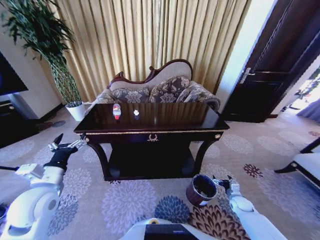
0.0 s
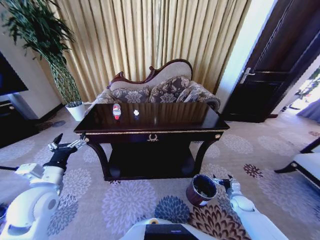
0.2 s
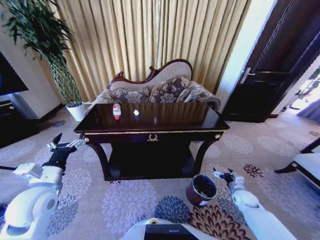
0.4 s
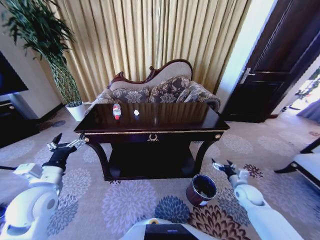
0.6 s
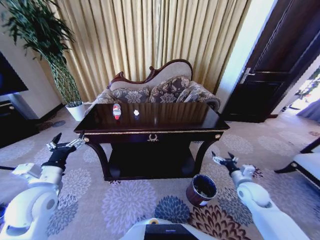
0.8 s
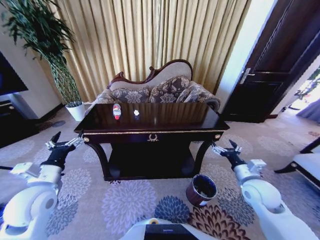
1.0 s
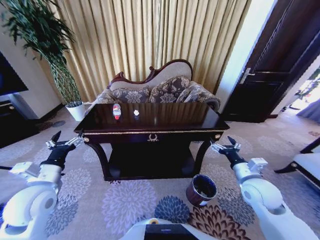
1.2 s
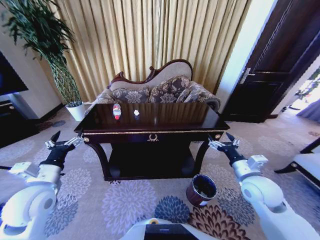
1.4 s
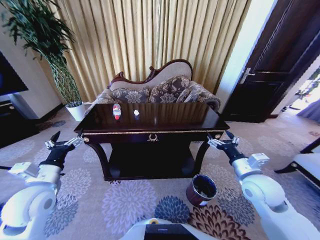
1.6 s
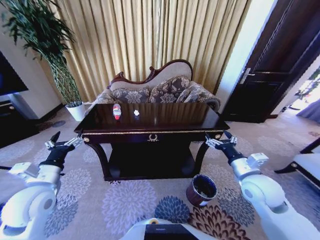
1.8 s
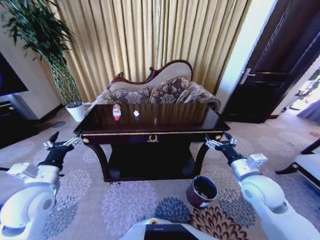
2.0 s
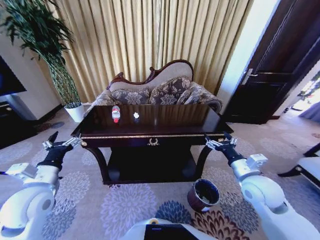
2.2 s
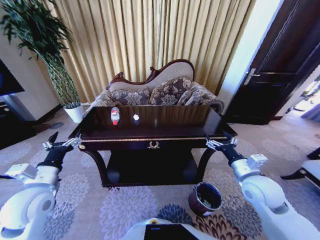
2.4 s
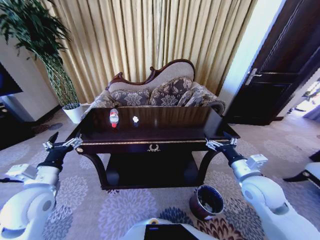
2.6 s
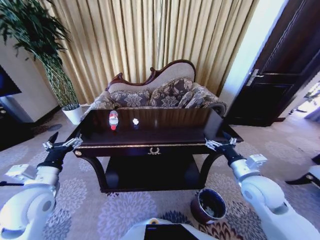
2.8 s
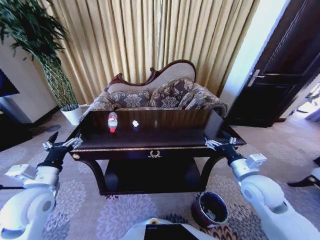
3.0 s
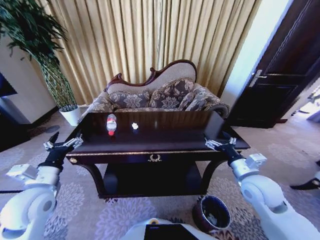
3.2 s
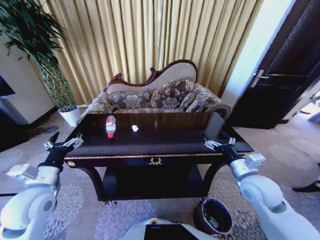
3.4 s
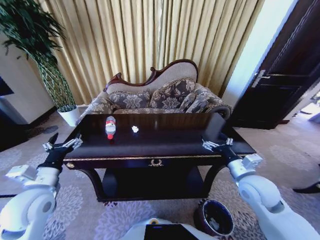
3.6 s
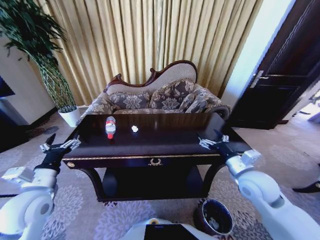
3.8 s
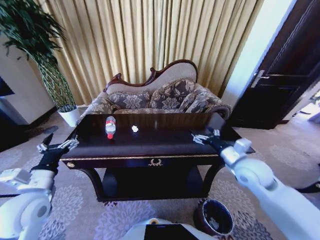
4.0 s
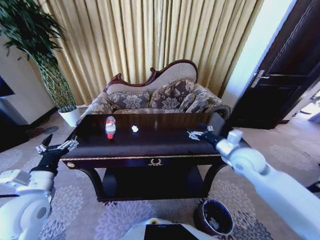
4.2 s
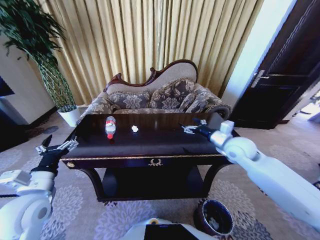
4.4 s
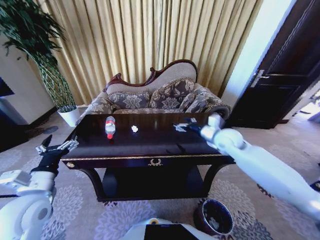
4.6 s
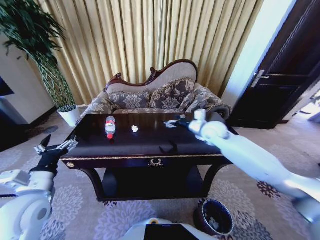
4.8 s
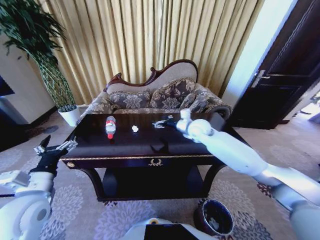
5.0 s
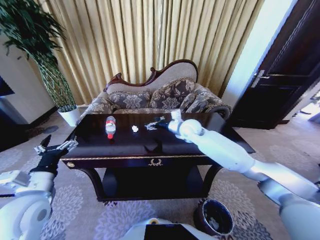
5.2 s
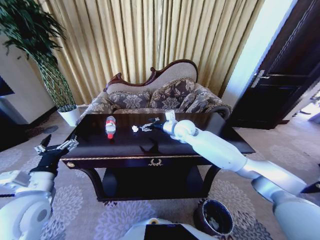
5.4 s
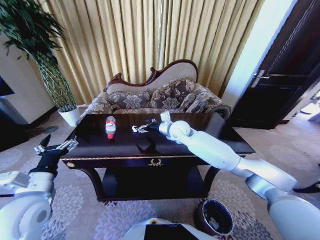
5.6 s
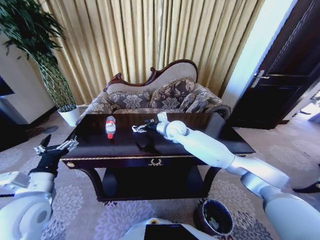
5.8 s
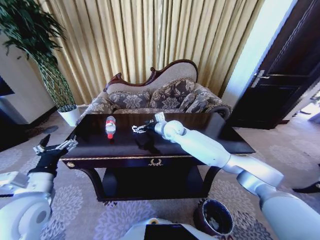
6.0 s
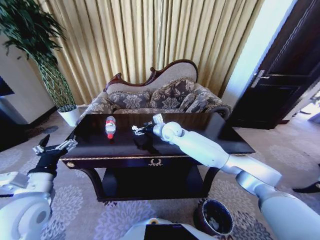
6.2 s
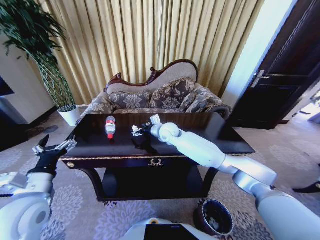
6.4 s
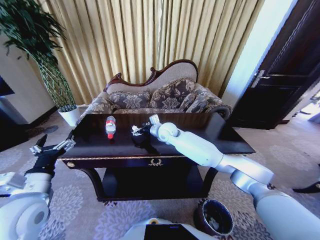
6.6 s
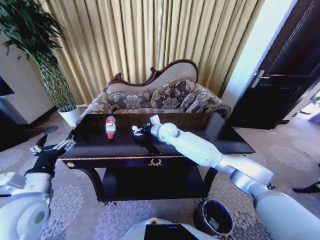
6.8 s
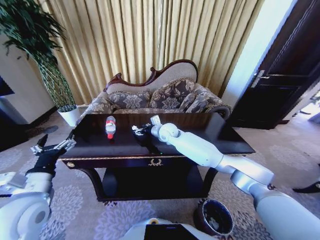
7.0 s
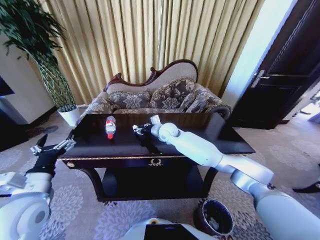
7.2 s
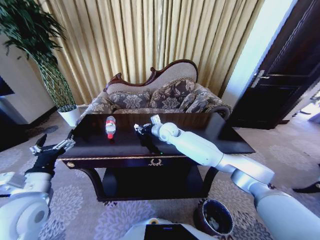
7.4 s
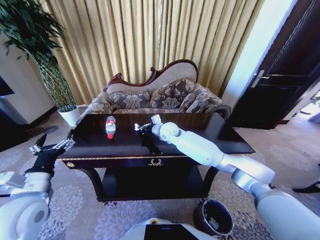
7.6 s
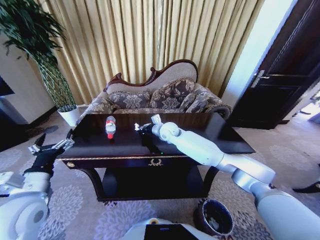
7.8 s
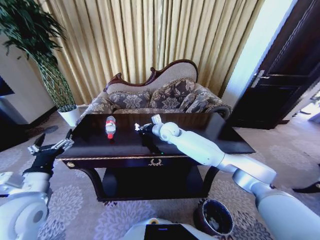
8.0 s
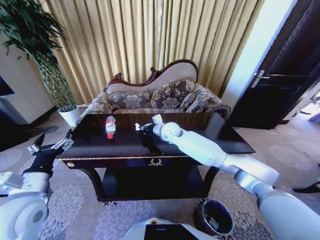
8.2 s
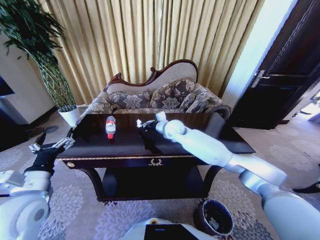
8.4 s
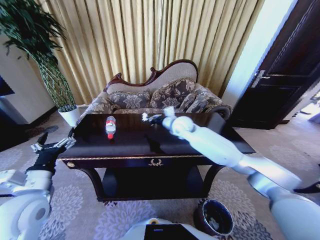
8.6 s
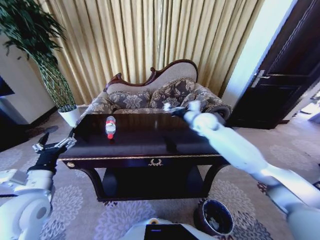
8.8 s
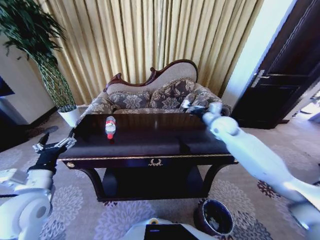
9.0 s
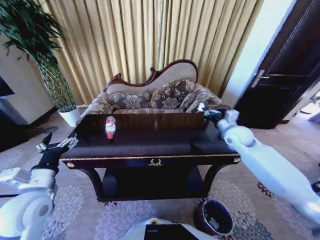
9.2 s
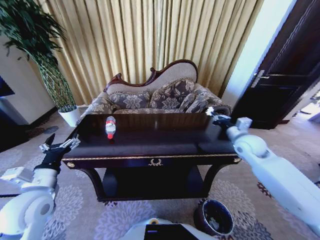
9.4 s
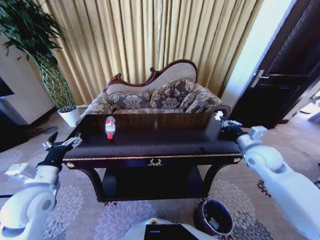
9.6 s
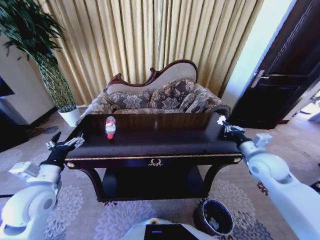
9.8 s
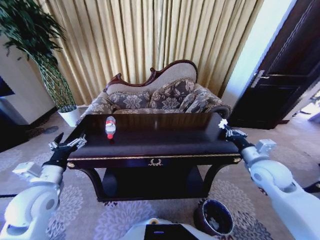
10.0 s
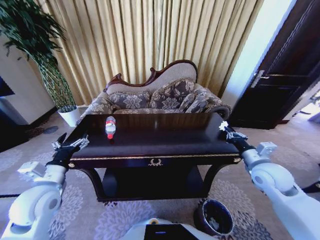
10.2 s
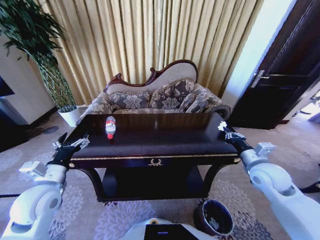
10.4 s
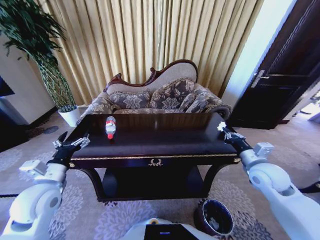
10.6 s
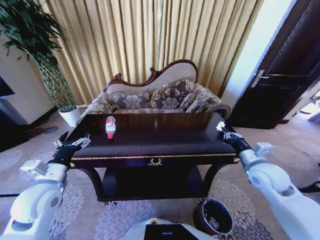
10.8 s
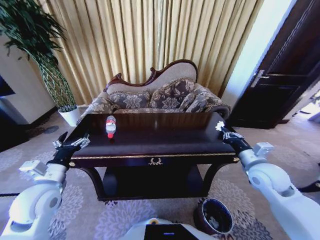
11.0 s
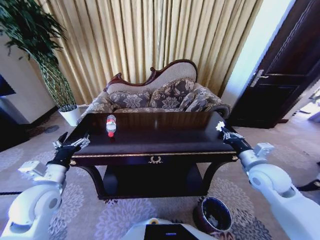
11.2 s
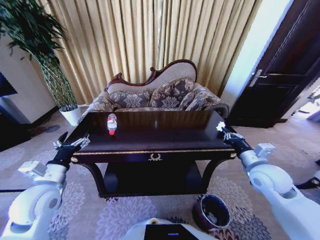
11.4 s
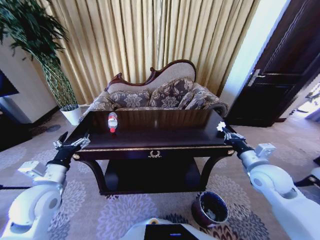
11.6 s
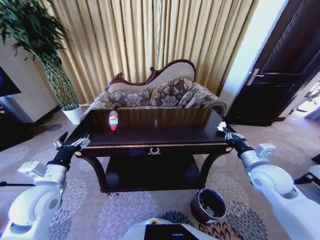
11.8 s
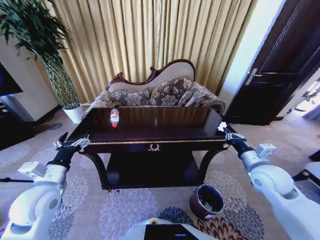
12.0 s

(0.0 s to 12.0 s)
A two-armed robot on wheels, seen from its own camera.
Task of the whole recording: Move to the front of the table and place the trash on the table into the trash bin.
0.0 s - 1.6 s: The right gripper travels upward and to the left by approximately 35 cm.
3.0 s - 4.4 s: The right gripper heads forward, covering about 15 cm.
4.4 s - 6.0 s: The right gripper is displaced to the left and forward by about 25 cm.
6.0 s - 7.6 s: The right gripper closes up.
7.6 s - 9.0 s: The right gripper shifts about 25 cm to the right.
9.0 s - 10.4 s: The right gripper heads backward, covering some 20 cm.

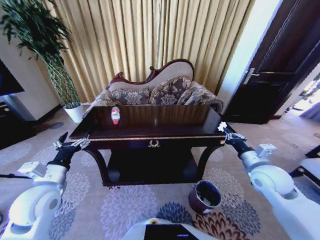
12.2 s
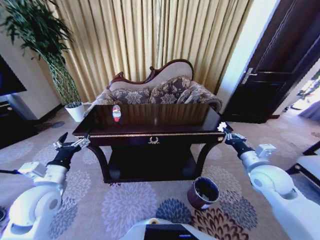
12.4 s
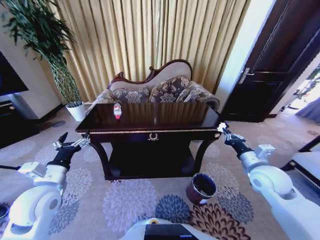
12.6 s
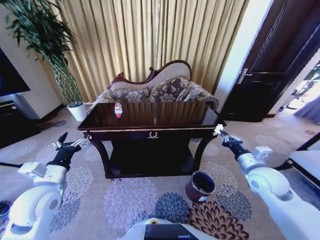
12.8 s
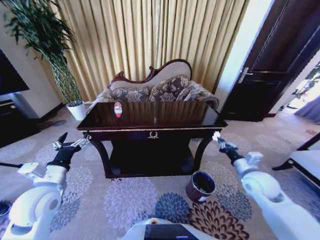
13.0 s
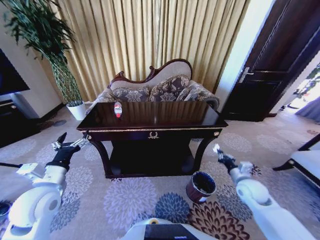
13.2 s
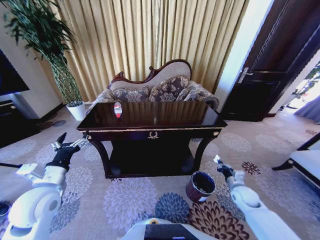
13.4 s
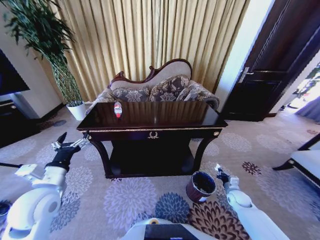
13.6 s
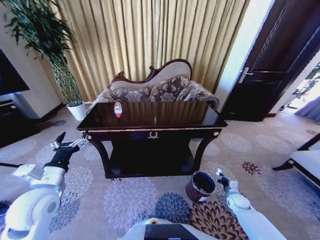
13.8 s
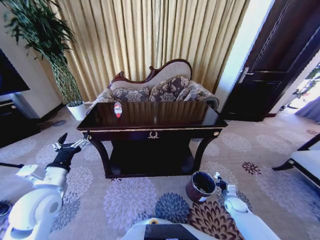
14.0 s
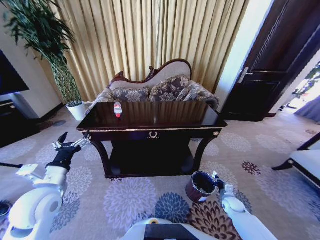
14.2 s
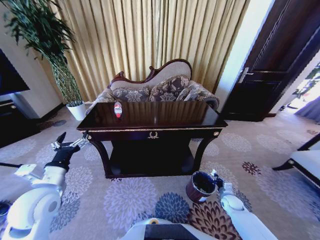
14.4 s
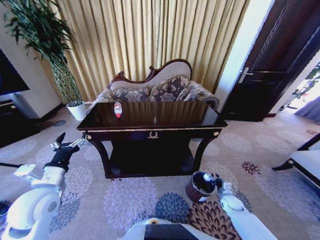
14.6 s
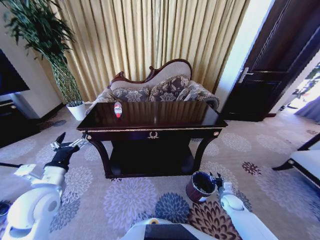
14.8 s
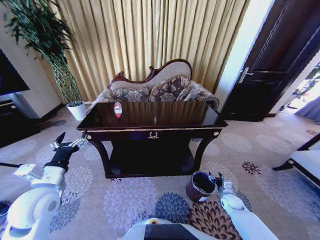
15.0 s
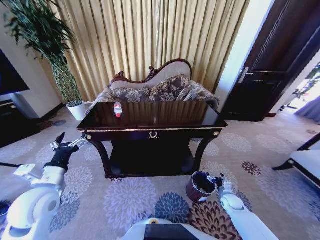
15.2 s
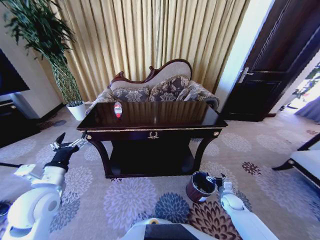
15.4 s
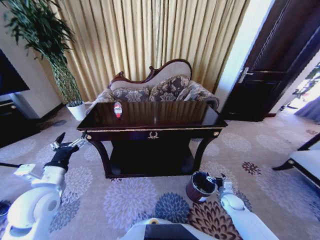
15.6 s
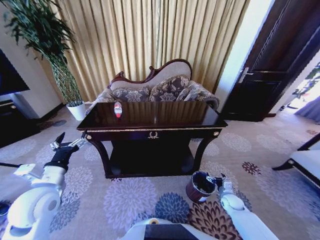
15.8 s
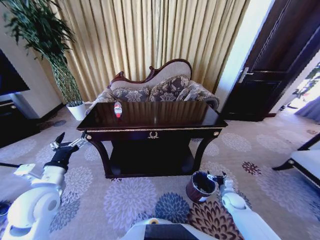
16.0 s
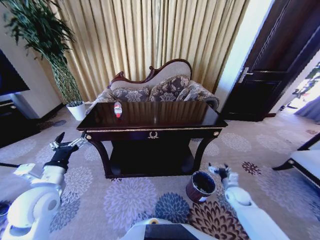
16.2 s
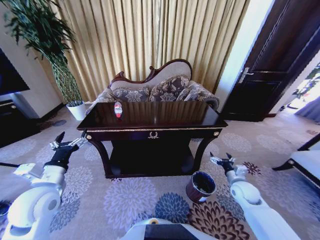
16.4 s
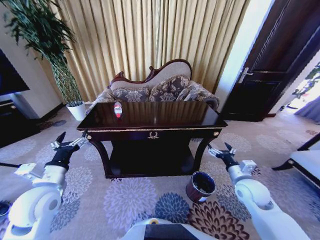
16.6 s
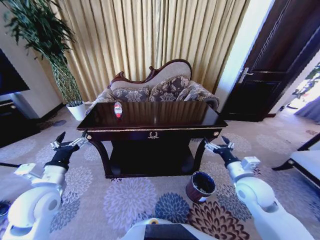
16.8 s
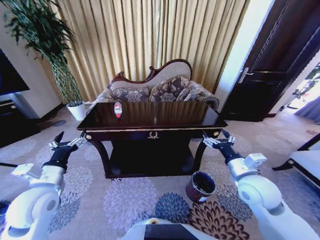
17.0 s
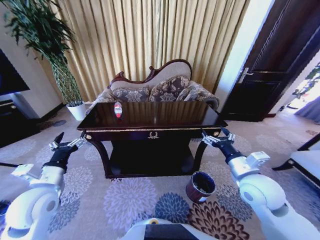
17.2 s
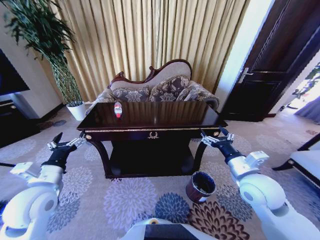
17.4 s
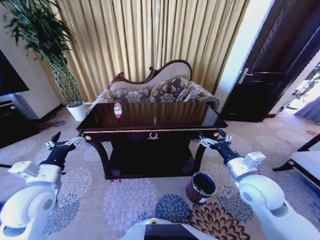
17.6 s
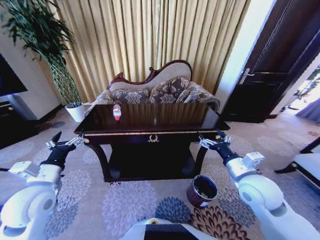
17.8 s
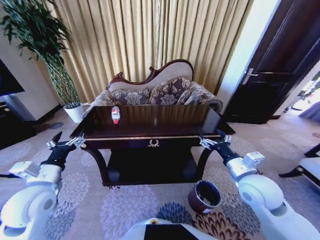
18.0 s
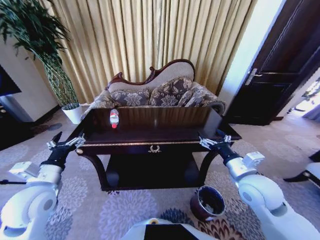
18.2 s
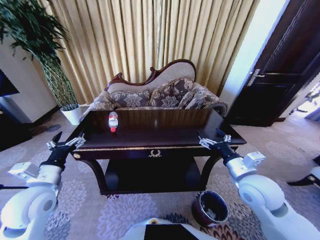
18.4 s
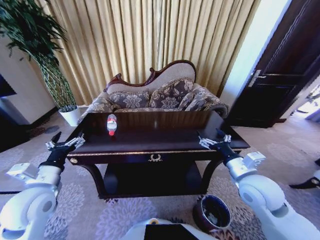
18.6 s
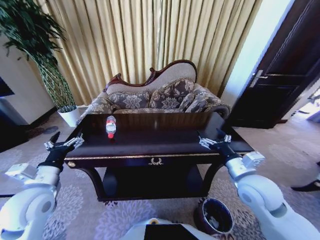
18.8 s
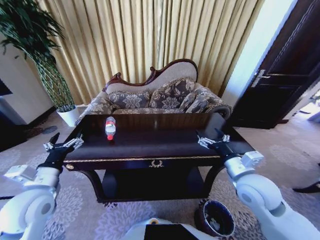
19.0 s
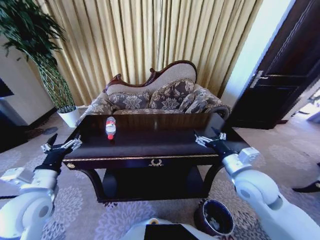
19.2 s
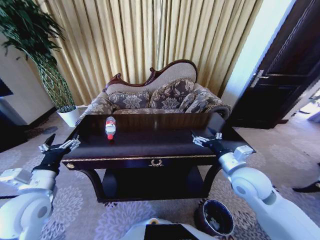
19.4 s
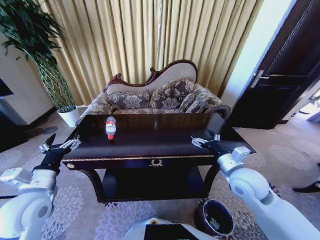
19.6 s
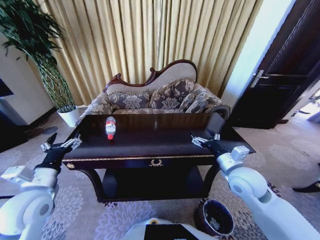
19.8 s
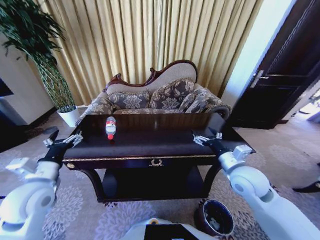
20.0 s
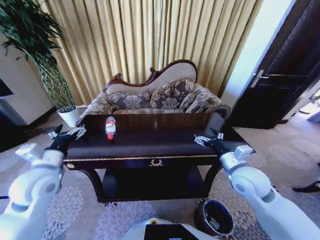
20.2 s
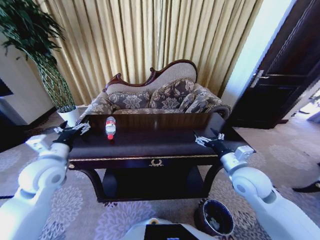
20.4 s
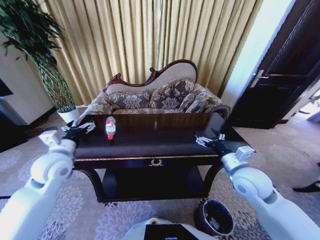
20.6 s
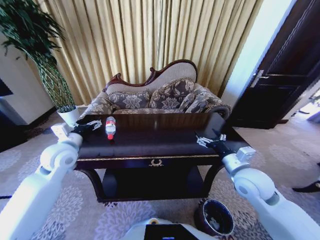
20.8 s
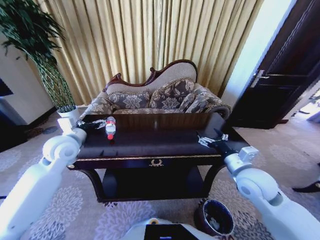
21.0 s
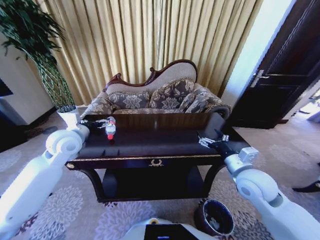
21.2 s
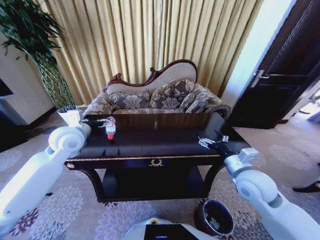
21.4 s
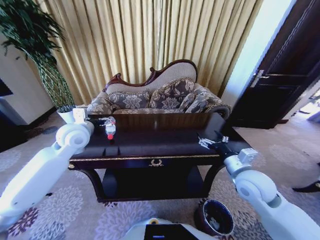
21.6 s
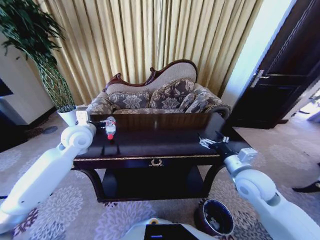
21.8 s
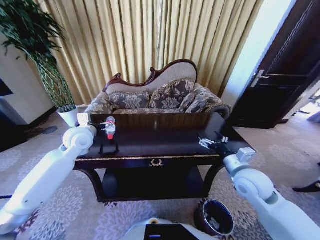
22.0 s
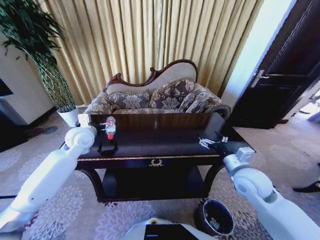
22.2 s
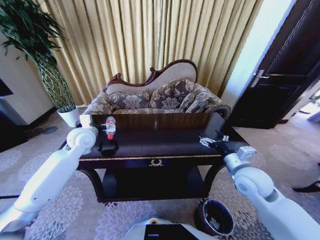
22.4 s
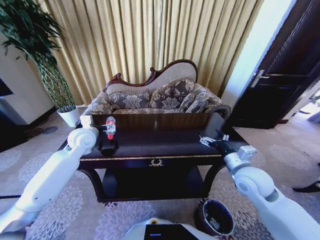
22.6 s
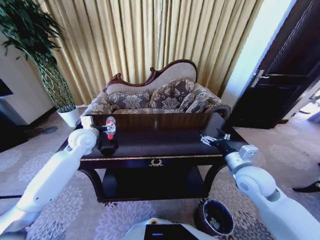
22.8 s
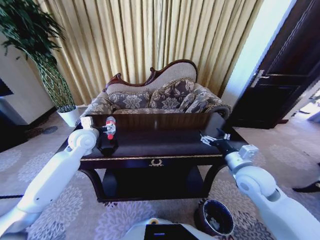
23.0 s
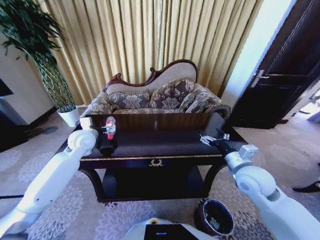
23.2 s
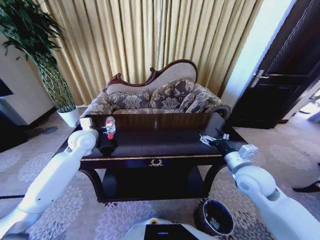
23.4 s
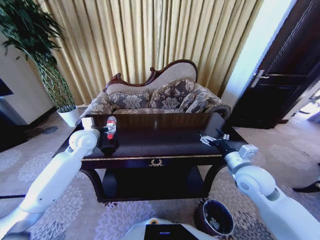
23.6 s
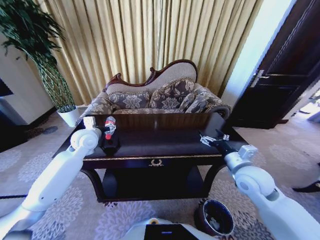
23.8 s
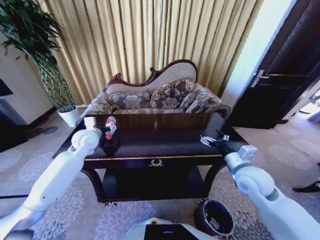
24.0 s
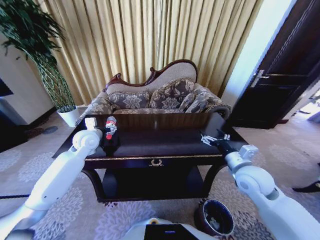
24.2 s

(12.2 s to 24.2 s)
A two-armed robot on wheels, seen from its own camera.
Task of the whole recording: Move to the front of the table and place the trash on the table into the trash bin.
12.2 s - 13.8 s: The right gripper moves downward, about 35 cm.
13.8 s - 15.2 s: The right gripper opens.
15.2 s - 16.6 s: The right gripper shifts approximately 25 cm upward.
16.6 s - 18.2 s: The right gripper moves upward and to the left, approximately 10 cm.
19.8 s - 21.2 s: The left gripper is displaced forward by about 20 cm.
21.2 s - 22.6 s: The left gripper changes place by some 5 cm.
22.6 s - 24.2 s: The grippers stay close to where they were, moving slightly.
